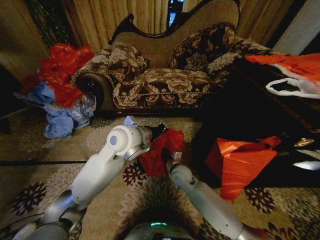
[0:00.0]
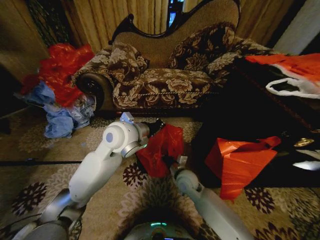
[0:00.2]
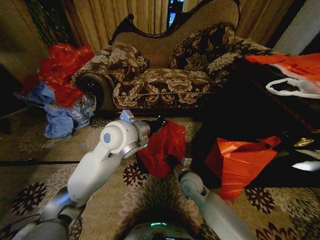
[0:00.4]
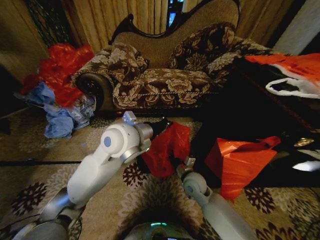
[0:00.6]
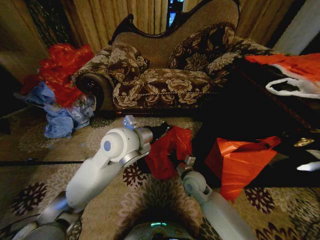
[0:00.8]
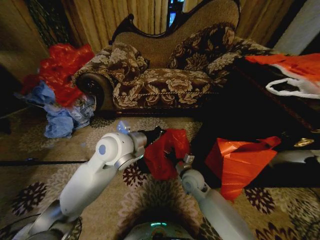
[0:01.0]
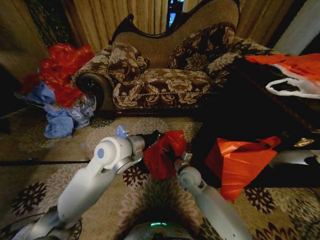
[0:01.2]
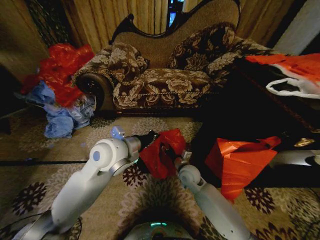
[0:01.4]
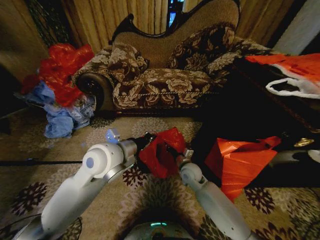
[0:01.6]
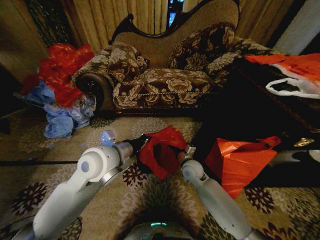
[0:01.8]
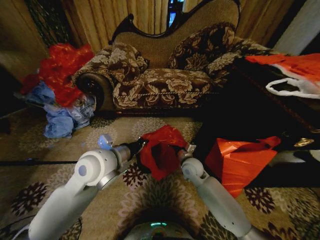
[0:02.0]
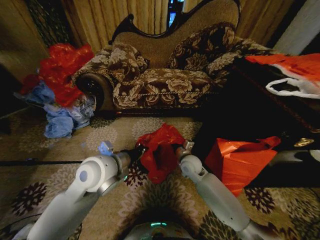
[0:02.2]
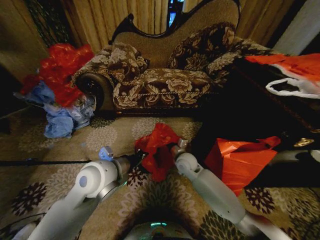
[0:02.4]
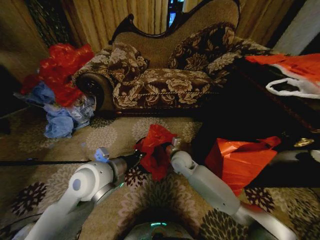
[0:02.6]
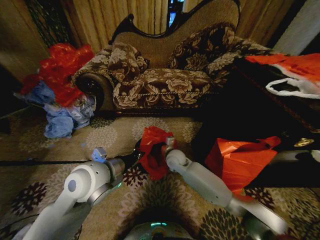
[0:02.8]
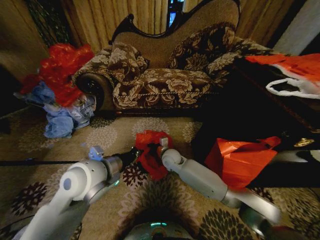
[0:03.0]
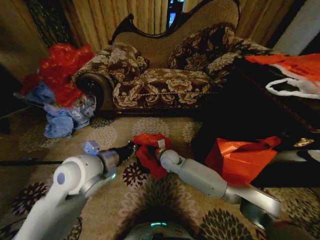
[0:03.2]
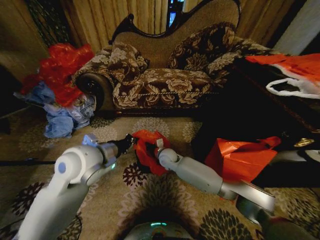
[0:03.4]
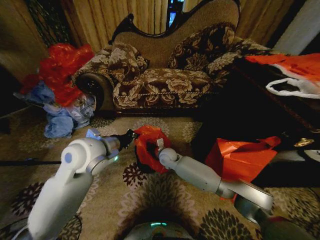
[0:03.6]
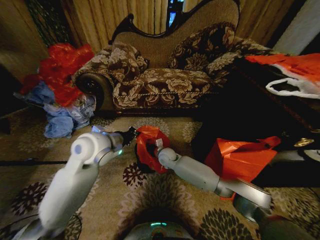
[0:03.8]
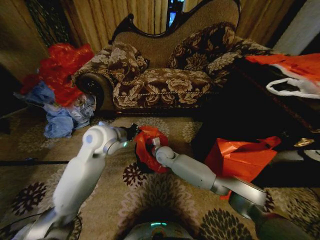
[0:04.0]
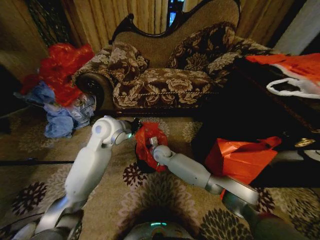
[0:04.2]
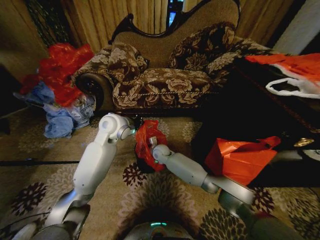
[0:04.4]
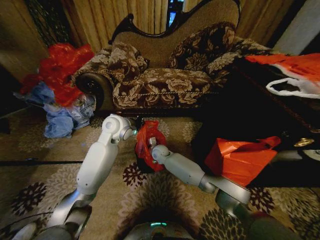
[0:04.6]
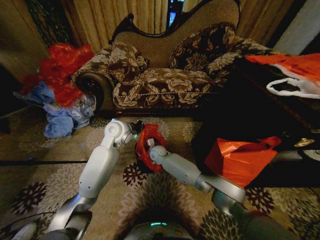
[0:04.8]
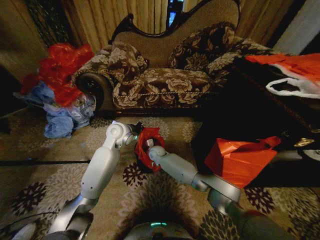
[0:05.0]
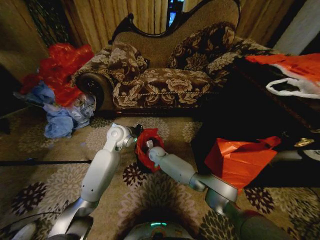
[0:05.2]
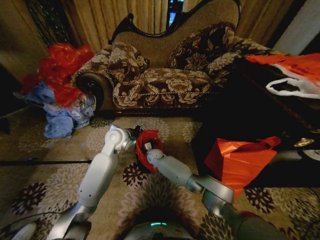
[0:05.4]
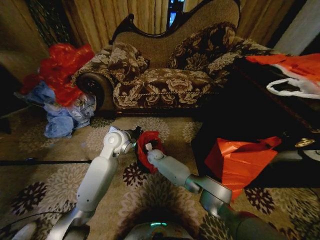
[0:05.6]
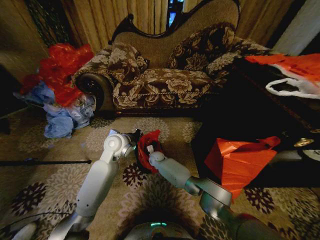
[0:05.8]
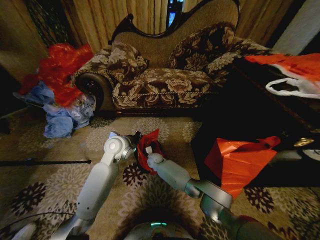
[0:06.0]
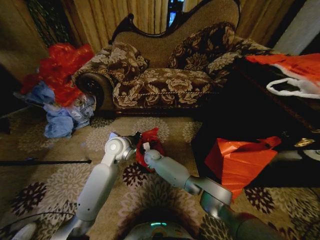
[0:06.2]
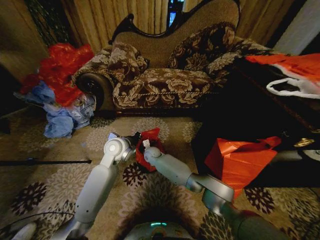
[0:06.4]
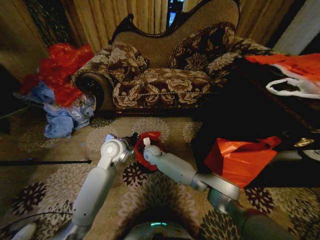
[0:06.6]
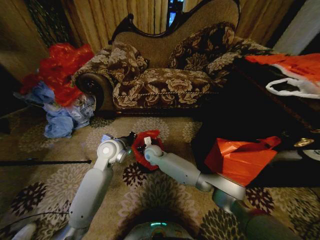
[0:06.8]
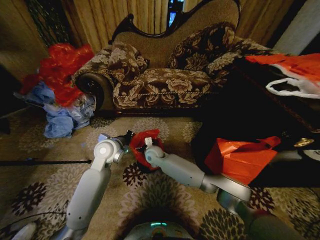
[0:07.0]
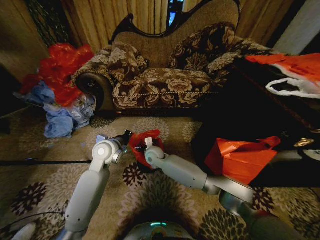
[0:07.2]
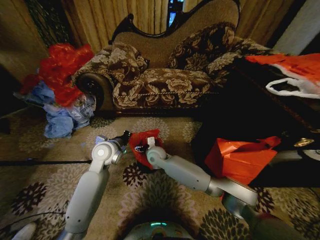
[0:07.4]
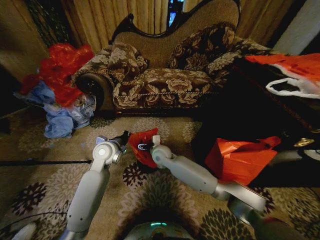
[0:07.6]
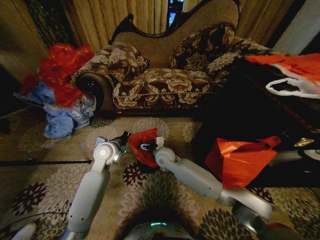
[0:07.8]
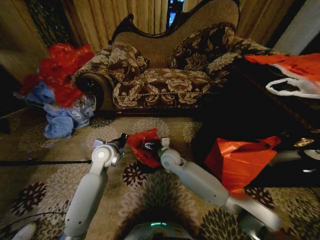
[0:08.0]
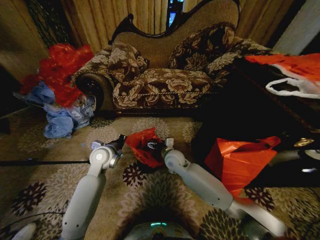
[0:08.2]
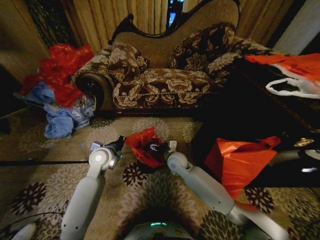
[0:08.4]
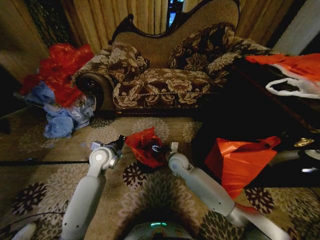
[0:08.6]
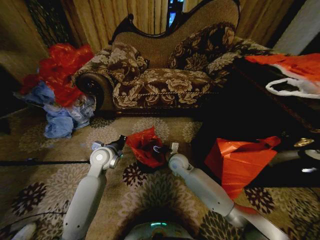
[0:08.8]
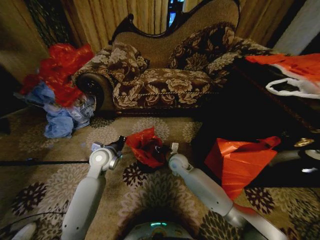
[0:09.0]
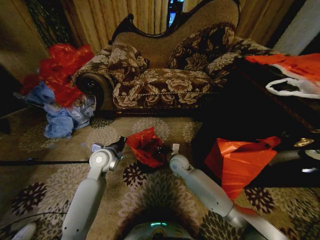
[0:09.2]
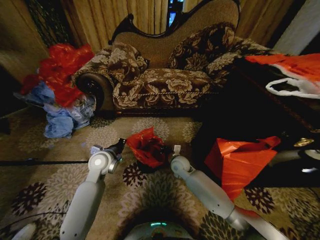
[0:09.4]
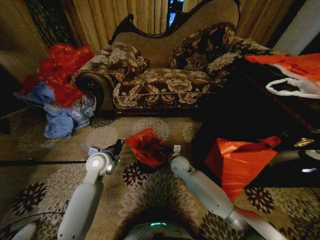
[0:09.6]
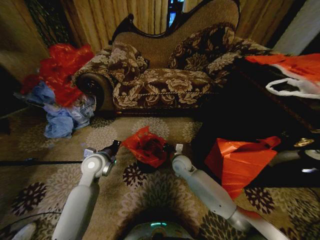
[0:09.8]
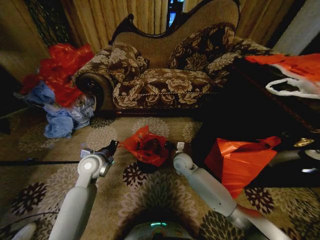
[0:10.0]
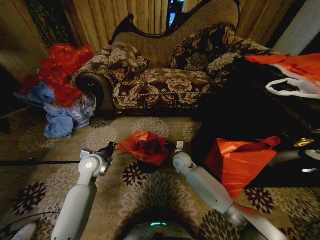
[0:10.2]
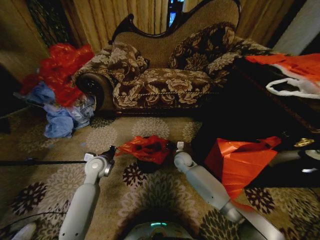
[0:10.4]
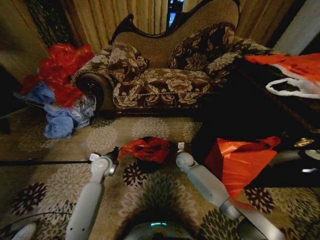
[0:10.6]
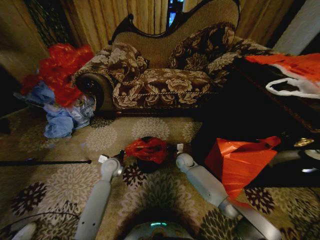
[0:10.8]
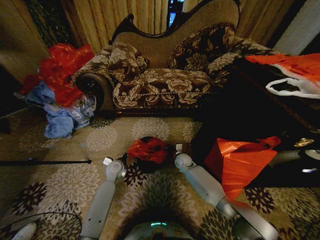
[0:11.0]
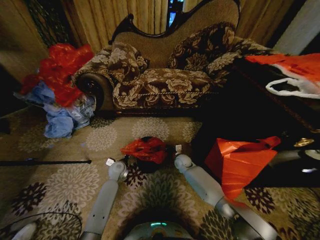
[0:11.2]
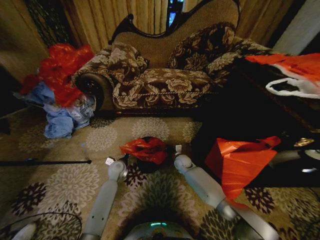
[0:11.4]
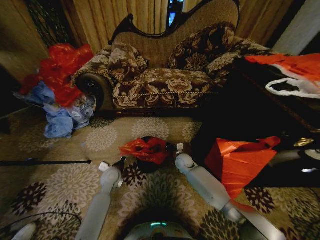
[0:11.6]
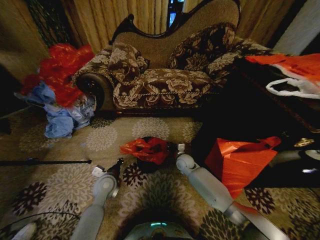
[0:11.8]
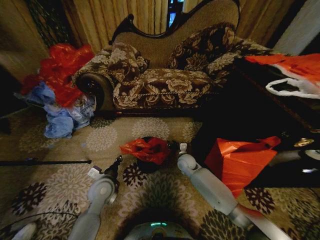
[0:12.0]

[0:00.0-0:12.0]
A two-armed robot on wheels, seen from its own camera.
Task of the whole recording: Place a garbage bag over the trash bin.
0:00.0 to 0:01.6: The left gripper moves backward, roughly 5 cm, while the right gripper closes up.
0:01.6 to 0:03.0: The right gripper moves to the left and forward, roughly 10 cm. The left gripper moves roughly 5 cm.
0:03.0 to 0:04.4: The left gripper is displaced forward by about 20 cm, while the right gripper goes approximately 5 cm forward.
0:04.4 to 0:06.0: The grippers both shift downward by approximately 10 cm.
0:06.0 to 0:07.6: The right gripper moves upward and backward, some 15 cm, and opens its fingers.
0:07.6 to 0:09.0: The right gripper shifts approximately 10 cm to the right, and closes up.
0:09.0 to 0:10.4: The right gripper changes place by roughly 5 cm, and closes. Meanwhile the left gripper goes roughly 5 cm downward.
0:10.4 to 0:12.0: The right gripper opens, while the left gripper moves backward and to the right, some 10 cm, and opens.

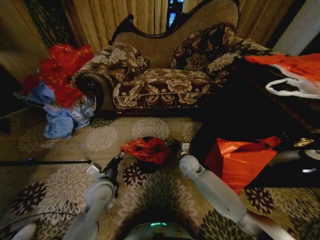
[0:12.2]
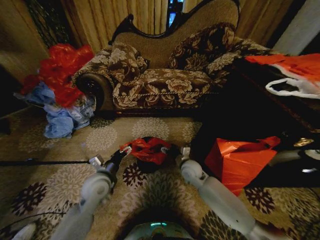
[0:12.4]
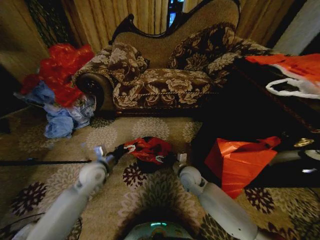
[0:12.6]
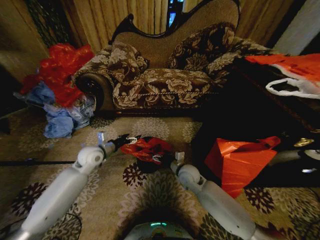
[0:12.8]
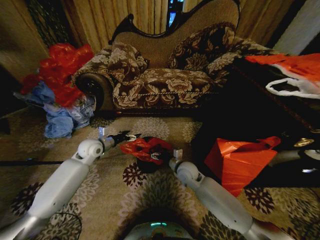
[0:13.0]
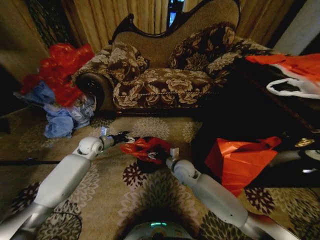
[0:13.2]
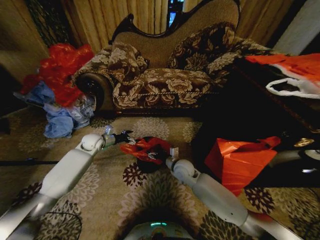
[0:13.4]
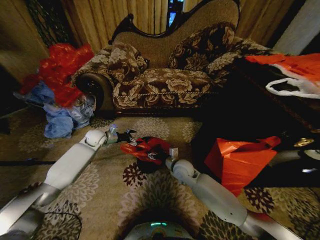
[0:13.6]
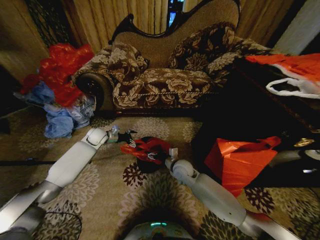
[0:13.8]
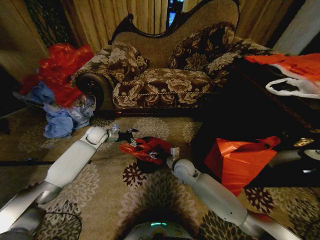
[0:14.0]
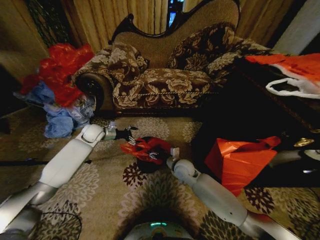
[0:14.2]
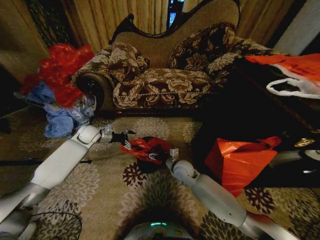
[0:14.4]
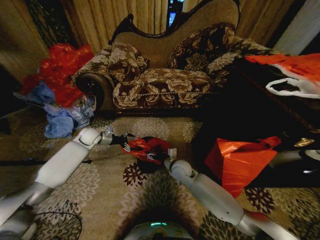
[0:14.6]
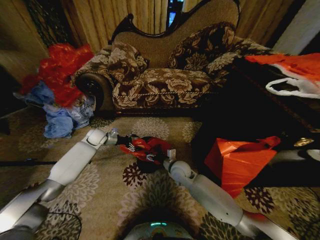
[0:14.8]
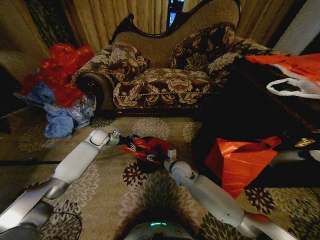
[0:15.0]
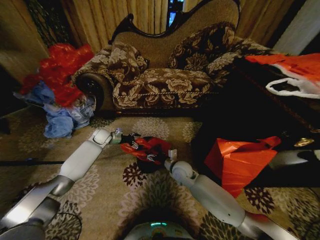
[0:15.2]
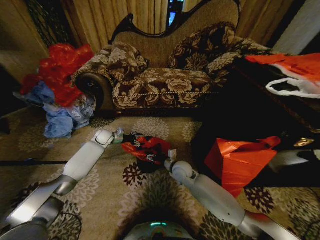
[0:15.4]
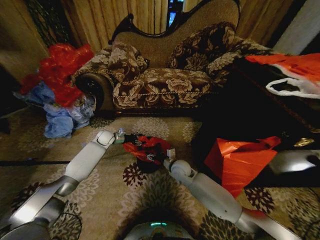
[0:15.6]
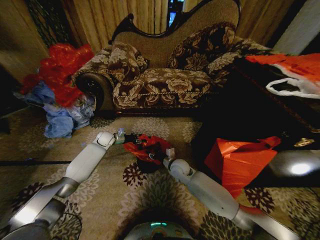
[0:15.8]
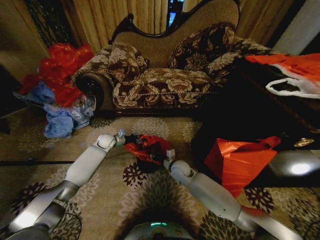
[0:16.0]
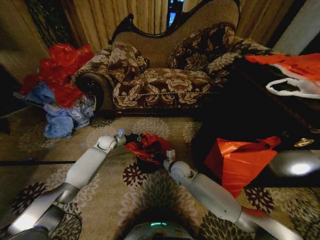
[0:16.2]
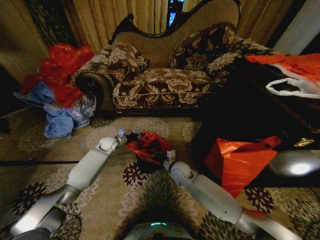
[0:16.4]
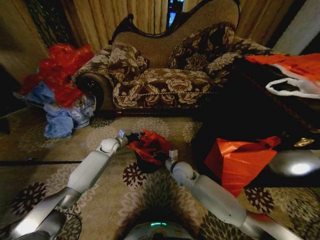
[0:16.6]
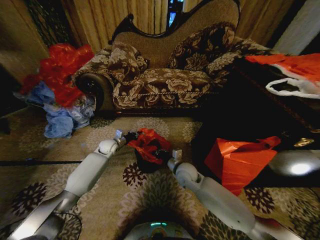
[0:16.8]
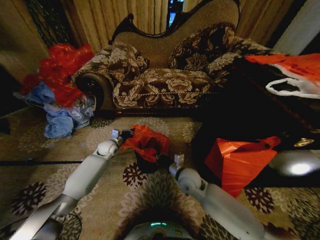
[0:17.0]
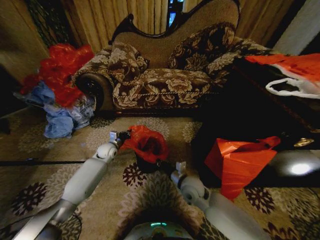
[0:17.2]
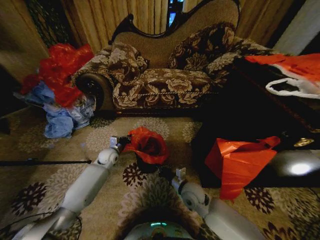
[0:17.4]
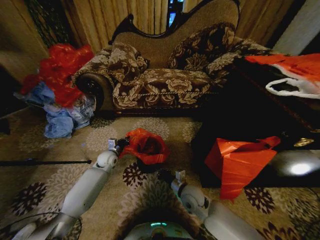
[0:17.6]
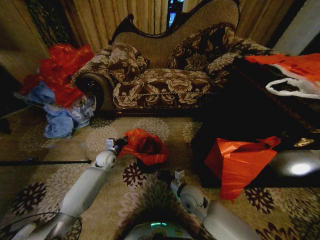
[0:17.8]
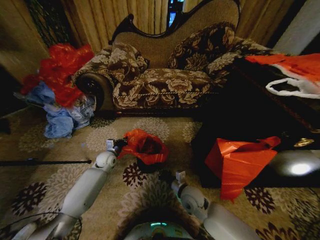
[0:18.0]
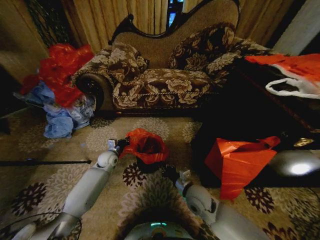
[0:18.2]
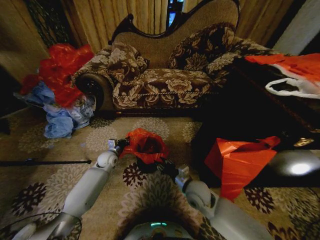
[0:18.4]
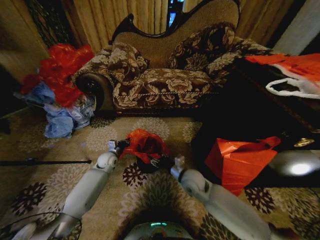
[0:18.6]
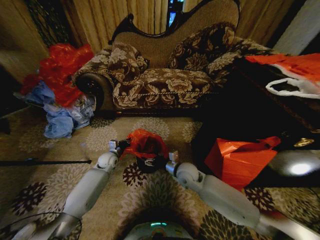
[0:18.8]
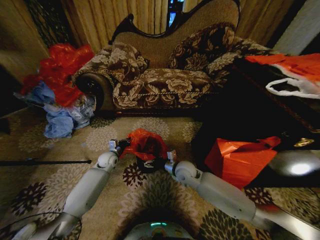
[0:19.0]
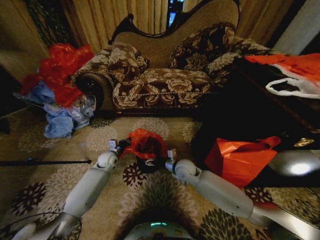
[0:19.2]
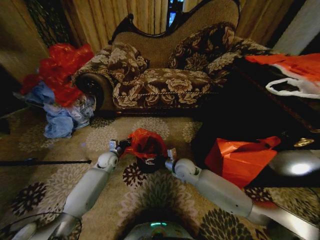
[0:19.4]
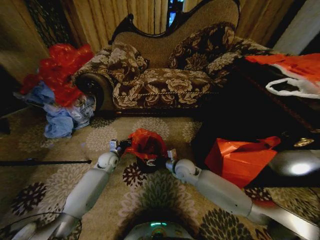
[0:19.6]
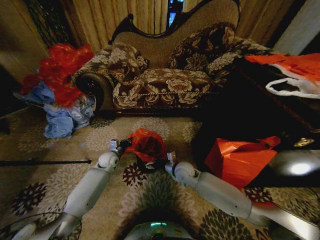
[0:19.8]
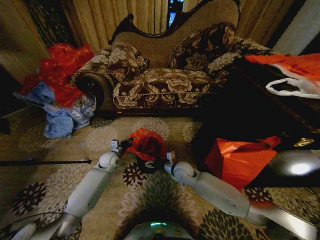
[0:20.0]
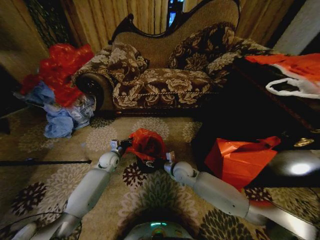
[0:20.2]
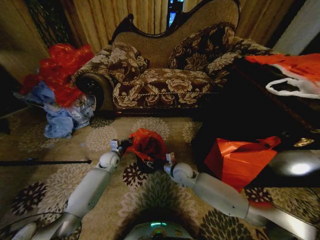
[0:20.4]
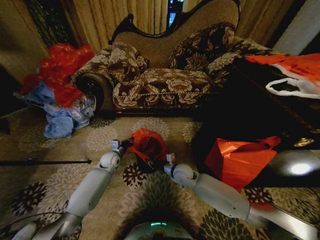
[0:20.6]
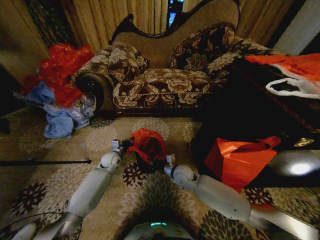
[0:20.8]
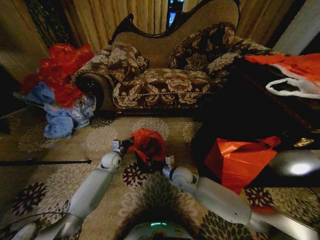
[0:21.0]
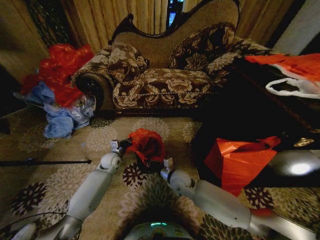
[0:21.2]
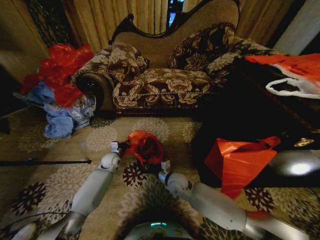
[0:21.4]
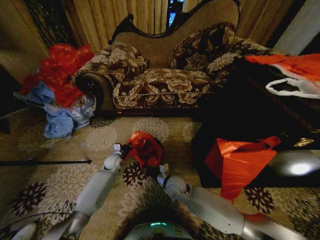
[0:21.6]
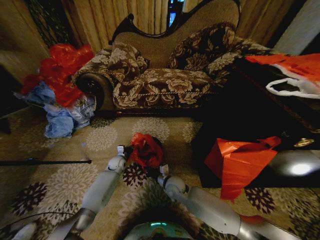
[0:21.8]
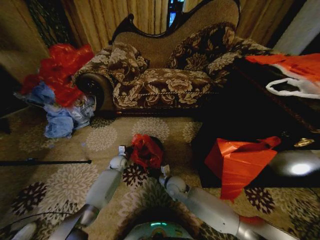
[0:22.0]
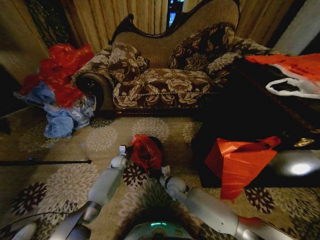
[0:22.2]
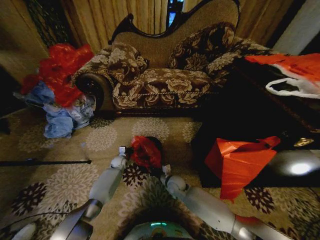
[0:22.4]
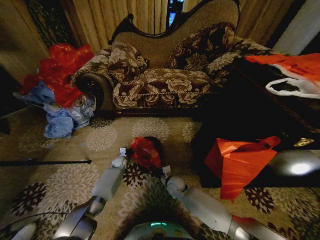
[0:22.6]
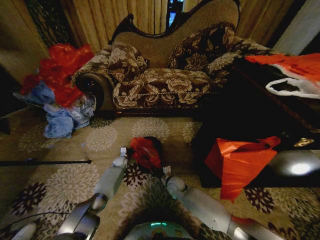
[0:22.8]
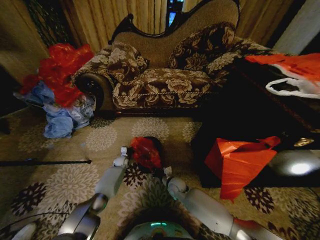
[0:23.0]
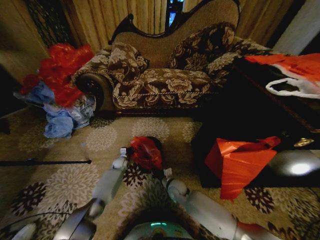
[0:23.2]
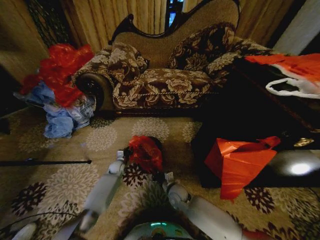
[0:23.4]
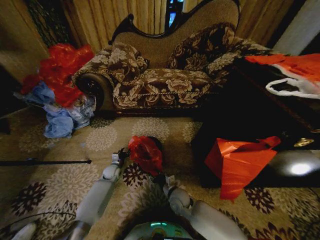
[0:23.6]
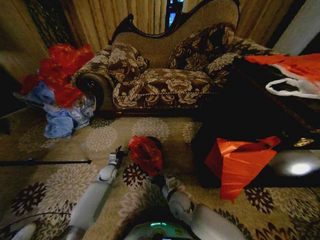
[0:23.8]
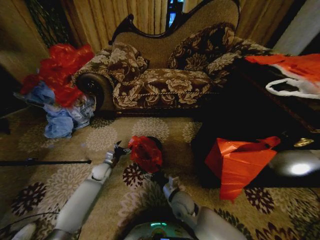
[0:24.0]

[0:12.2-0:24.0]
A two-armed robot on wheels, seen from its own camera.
Task of the whole recording: Place a garbage bag over the trash bin.
0:12.2 to 0:13.6: The left gripper shifts approximately 30 cm forward and to the left. The right gripper moves roughly 5 cm.
0:13.6 to 0:15.2: The grippers move only a little.
0:15.2 to 0:16.6: The left gripper moves to the right, approximately 5 cm, and closes up, while the right gripper closes.
0:16.6 to 0:18.2: The right gripper goes about 10 cm backward, while the left gripper is displaced backward by some 5 cm.
0:18.2 to 0:19.6: The right gripper is displaced forward by approximately 10 cm, and opens.
0:19.6 to 0:21.0: The right gripper closes.
0:21.0 to 0:22.6: The left gripper is displaced downward and forward by about 15 cm. The right gripper moves downward, about 10 cm.
0:22.6 to 0:24.0: The right gripper travels backward and upward by approximately 10 cm, and opens up. Meanwhile the left gripper travels backward, upward and to the left by roughly 15 cm, and opens up.
